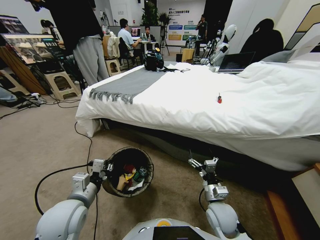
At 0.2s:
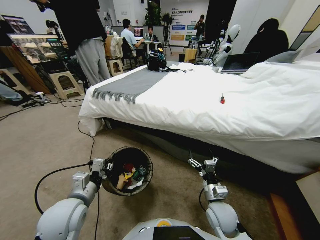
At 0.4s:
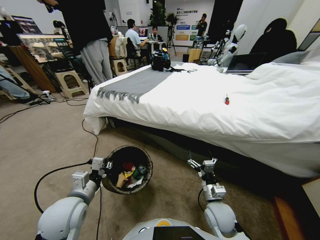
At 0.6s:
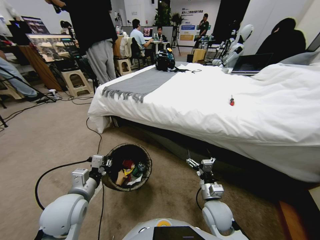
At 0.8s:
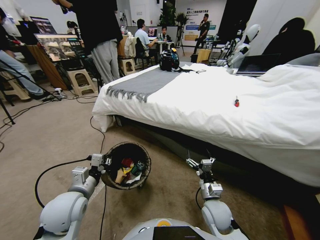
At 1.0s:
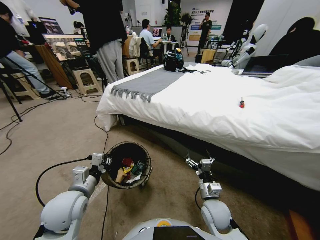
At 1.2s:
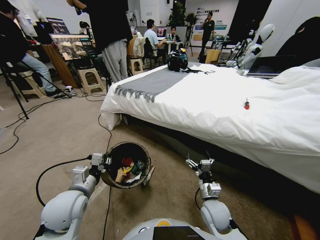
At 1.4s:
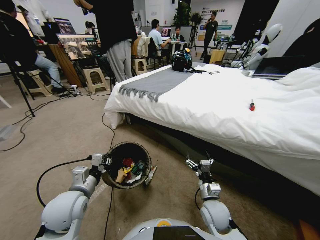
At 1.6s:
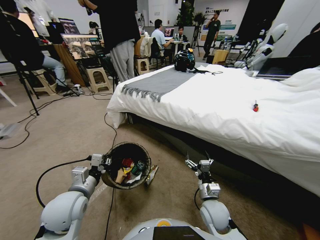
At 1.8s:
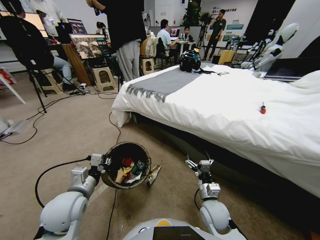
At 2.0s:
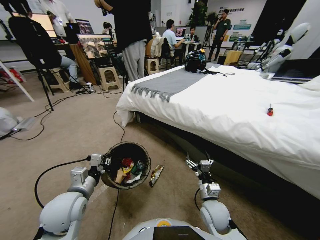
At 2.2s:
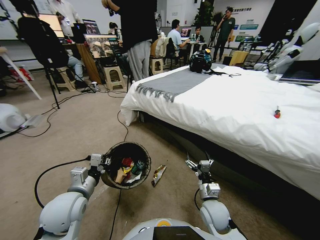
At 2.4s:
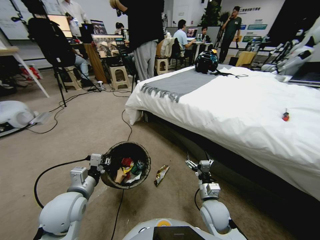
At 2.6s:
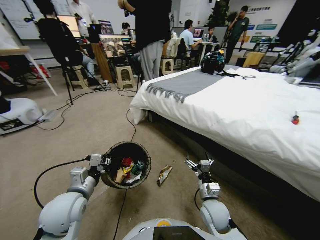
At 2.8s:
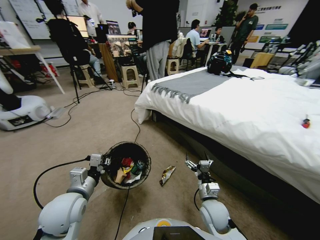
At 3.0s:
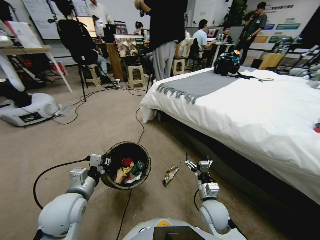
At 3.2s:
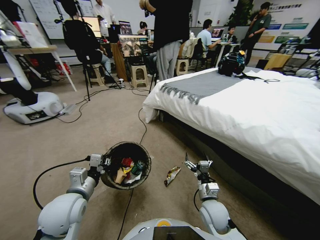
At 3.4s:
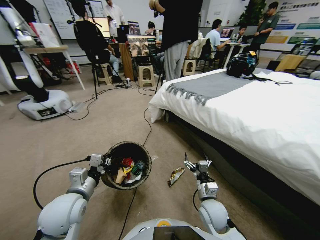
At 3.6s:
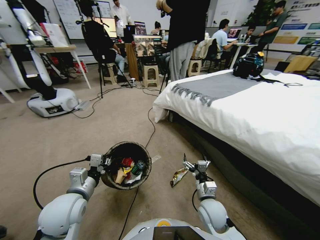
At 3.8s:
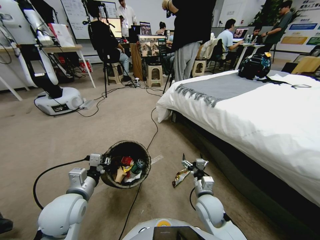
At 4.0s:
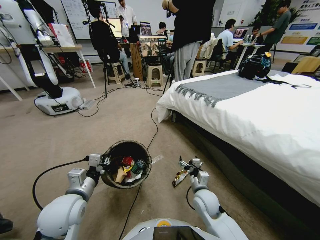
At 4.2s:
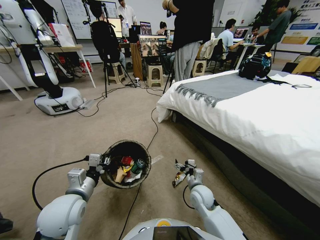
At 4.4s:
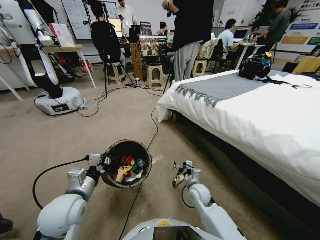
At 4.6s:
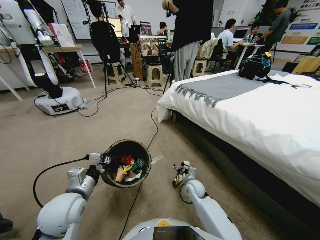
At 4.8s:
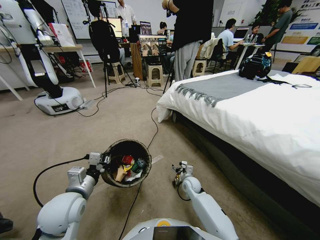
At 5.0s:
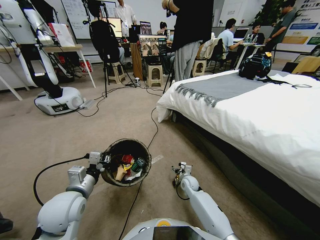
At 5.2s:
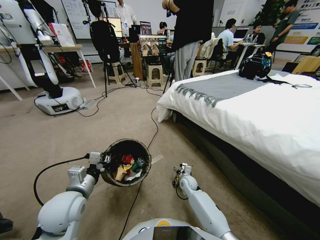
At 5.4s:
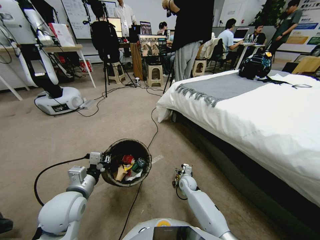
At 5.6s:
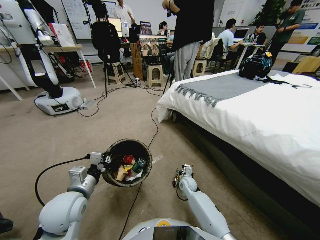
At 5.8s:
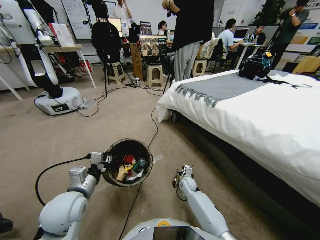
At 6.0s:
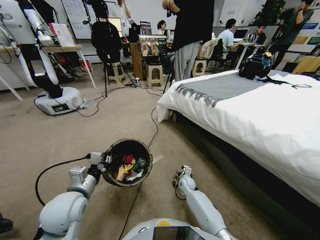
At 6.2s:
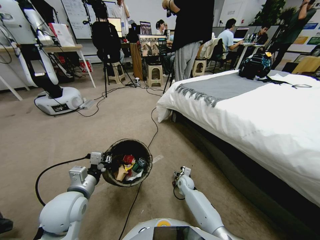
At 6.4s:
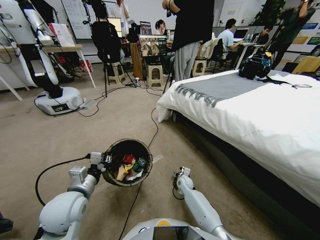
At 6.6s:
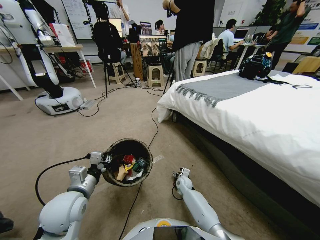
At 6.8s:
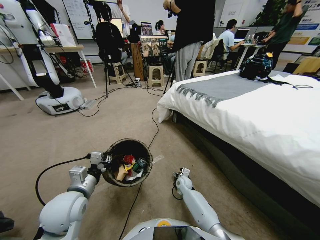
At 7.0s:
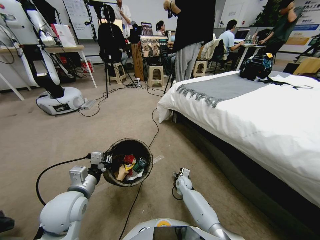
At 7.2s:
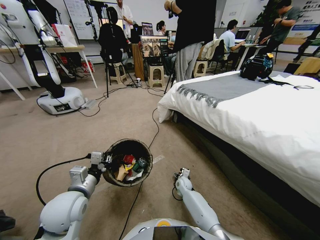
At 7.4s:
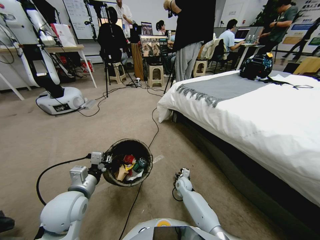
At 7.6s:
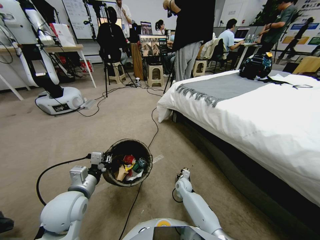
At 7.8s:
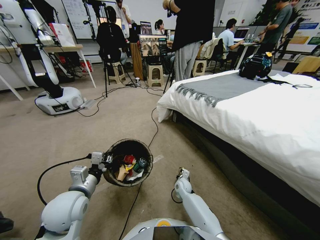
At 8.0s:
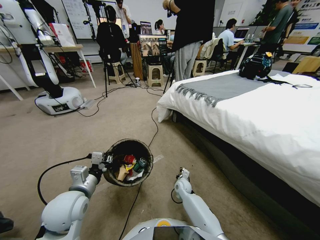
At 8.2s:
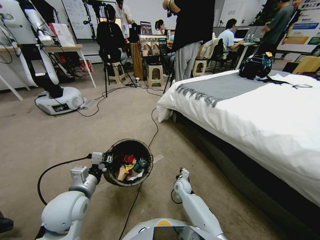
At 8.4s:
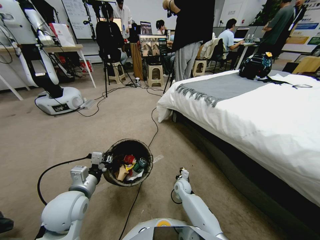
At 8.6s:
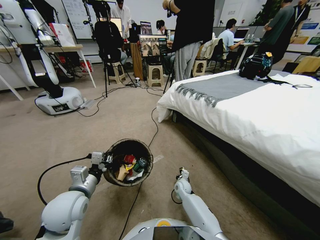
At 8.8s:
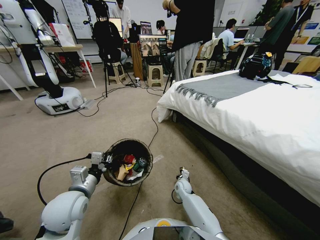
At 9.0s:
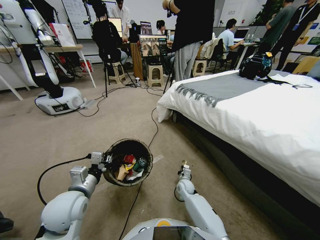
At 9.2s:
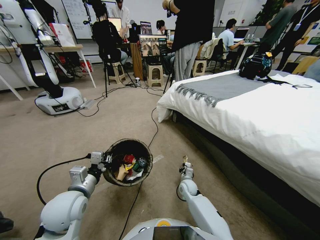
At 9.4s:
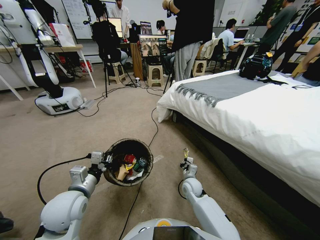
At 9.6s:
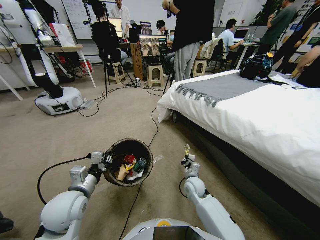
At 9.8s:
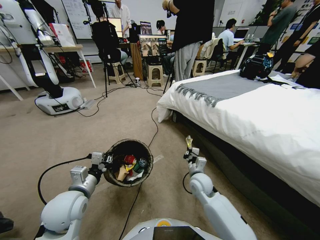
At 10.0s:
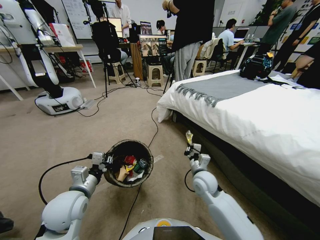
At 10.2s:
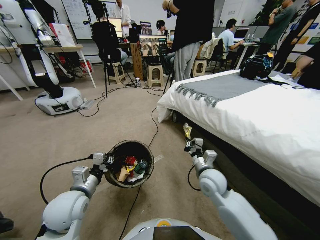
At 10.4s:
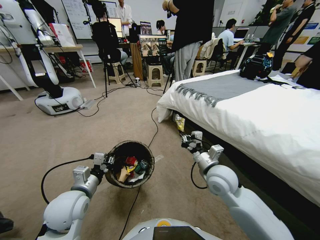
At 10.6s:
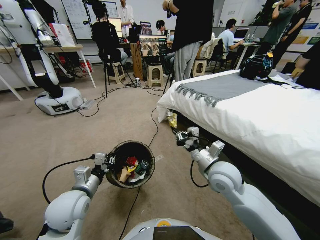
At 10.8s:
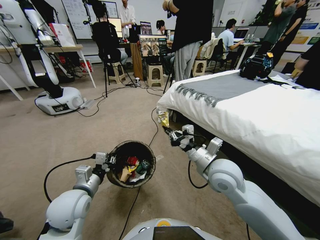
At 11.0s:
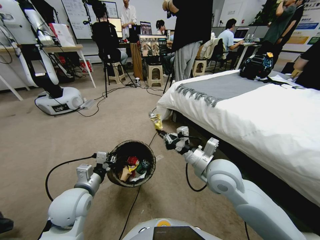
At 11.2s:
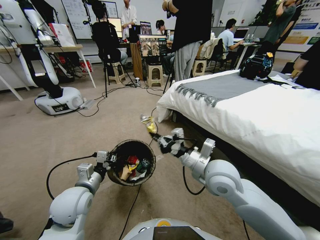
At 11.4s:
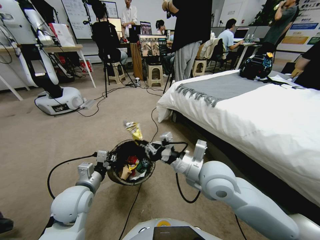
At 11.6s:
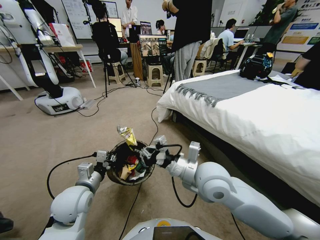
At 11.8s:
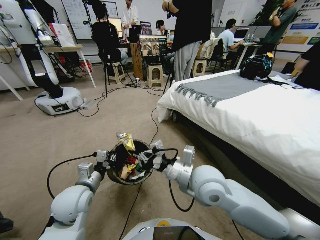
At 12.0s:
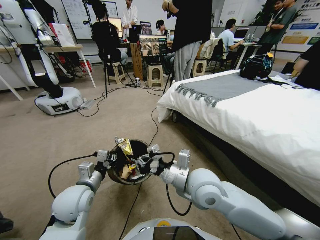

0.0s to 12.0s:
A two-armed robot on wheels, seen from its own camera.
Task of the whole recording: Pick up the trash bin, then pick up the garbage from the floor and place it into the trash bin.
3.0s to 4.4s: The right gripper heads forward and downward, covering roughly 15 cm.
4.4s to 6.0s: The right gripper is displaced downward and forward by roughly 10 cm.
6.0s to 7.6s: The right gripper closes.
7.6s to 9.0s: The right gripper closes up.
9.0s to 10.4s: The right gripper moves upward, roughly 30 cm.
10.4s to 12.0s: The right gripper moves to the left, approximately 10 cm.

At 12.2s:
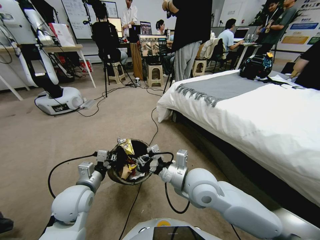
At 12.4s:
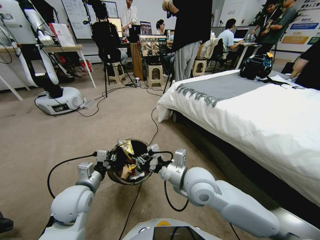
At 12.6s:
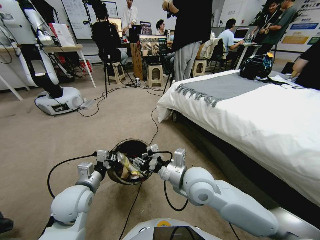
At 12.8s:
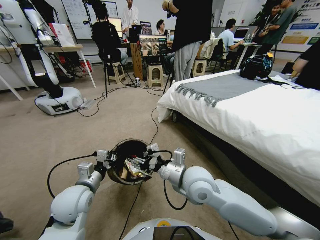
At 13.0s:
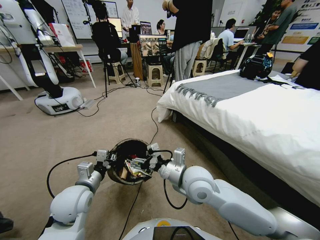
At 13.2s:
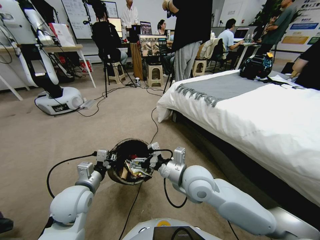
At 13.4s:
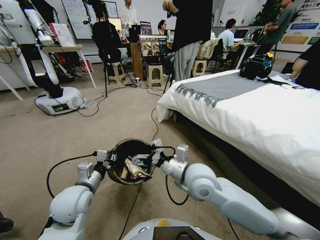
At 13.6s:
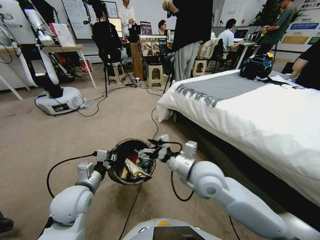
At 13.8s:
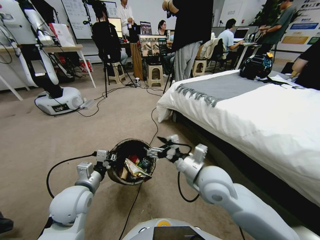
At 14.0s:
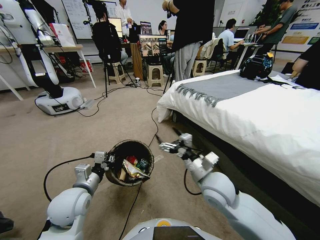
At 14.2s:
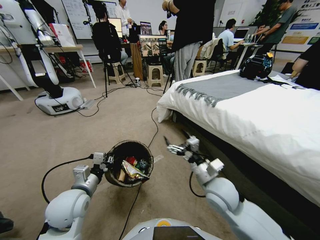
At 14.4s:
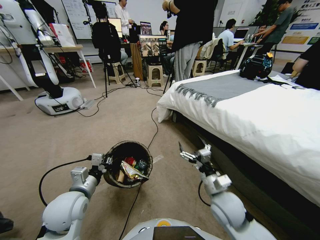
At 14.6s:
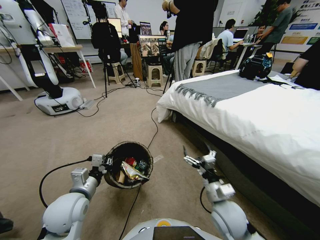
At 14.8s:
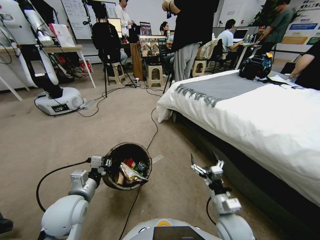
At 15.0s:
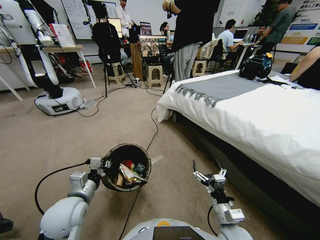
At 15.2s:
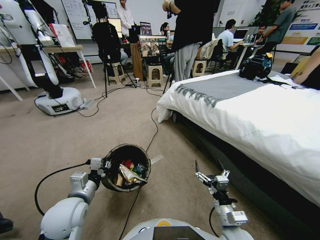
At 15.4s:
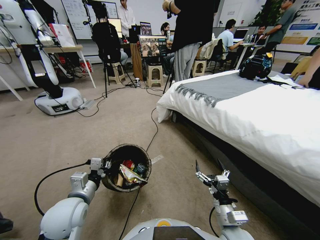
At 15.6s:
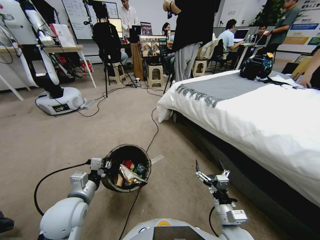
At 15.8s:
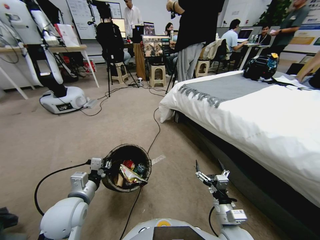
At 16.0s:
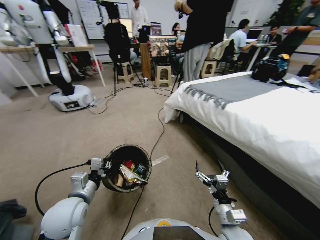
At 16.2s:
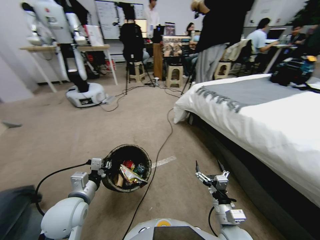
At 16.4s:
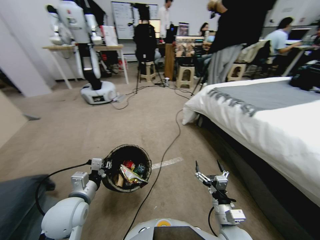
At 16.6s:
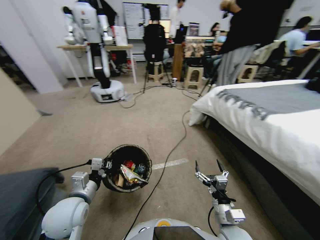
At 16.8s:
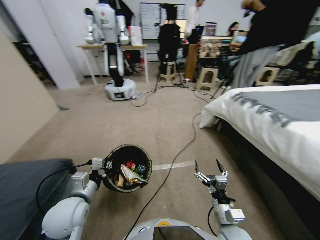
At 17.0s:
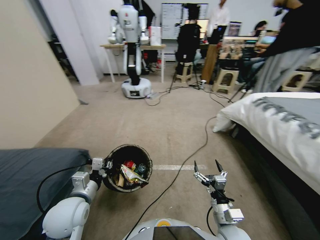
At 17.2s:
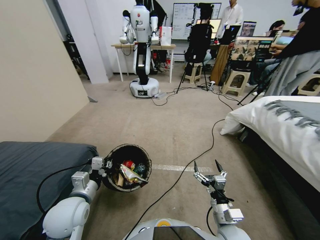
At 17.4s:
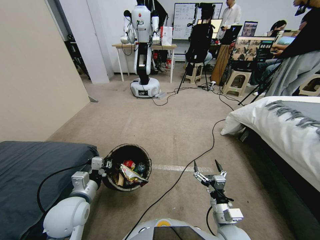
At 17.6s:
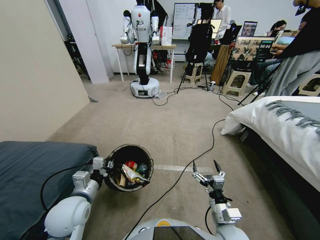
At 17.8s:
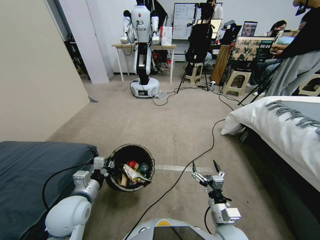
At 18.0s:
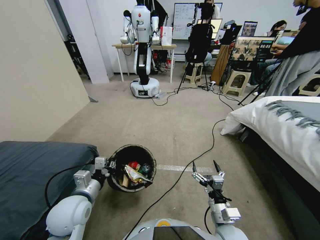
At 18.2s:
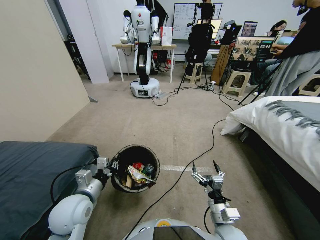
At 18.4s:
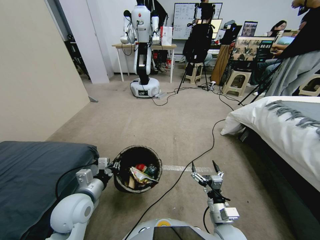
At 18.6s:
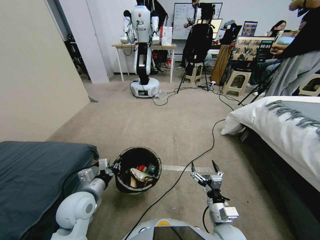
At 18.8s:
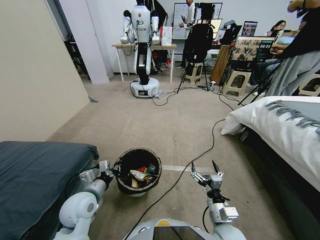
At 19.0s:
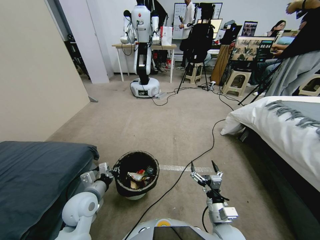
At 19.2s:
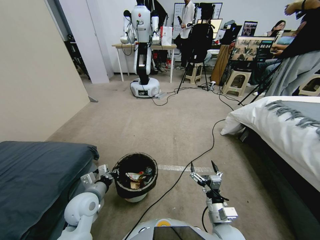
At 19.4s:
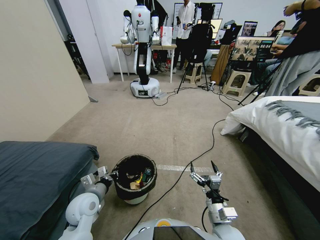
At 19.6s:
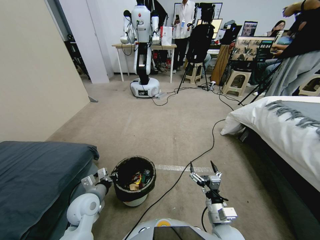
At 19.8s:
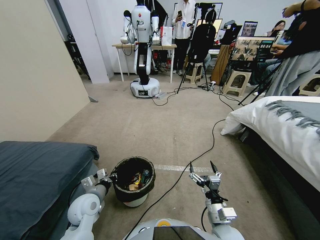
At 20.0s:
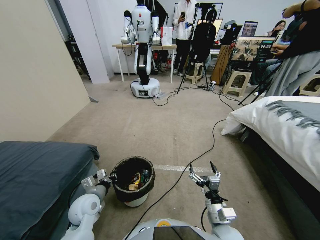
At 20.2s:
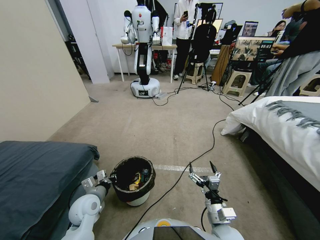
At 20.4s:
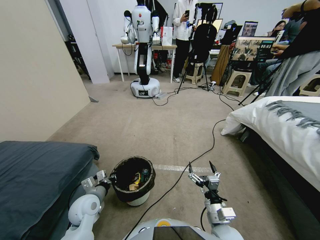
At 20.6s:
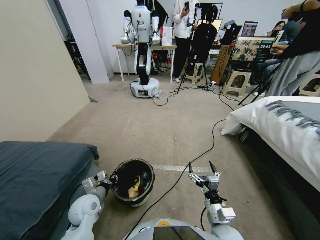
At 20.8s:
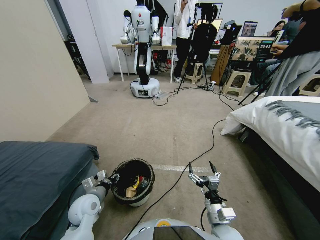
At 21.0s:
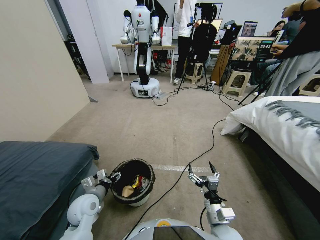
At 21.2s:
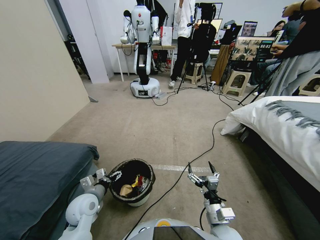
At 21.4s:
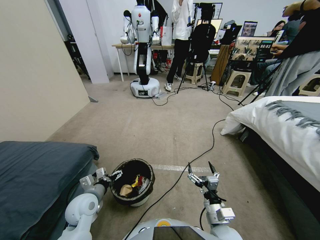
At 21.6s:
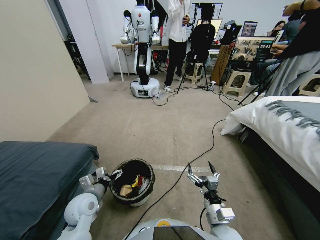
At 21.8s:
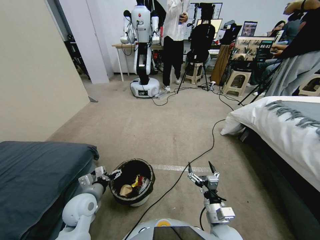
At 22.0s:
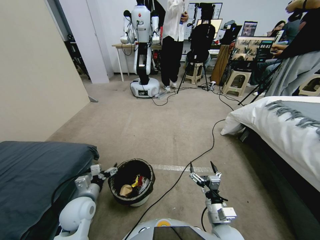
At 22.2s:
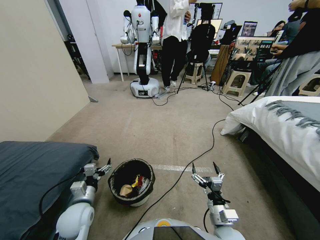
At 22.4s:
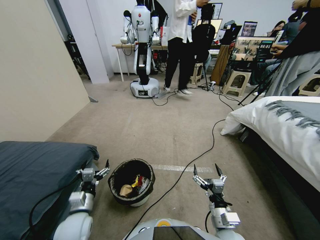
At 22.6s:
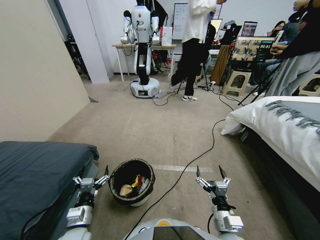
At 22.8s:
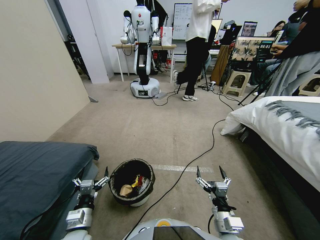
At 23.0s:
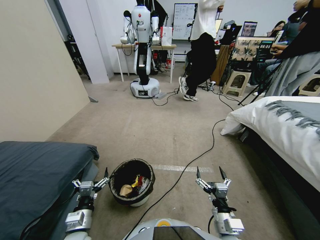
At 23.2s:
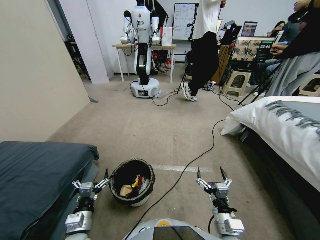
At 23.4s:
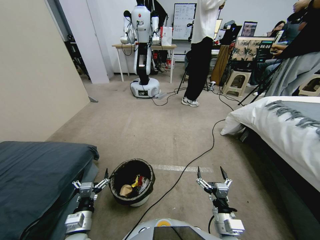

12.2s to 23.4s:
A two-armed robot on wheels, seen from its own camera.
Task of the whole recording: Pick up the trash bin, then pick up the garbage from the floor and place it into the trash bin.
12.2s to 13.8s: The right gripper opens.
13.8s to 15.4s: The right gripper is displaced downward, backward and to the right by some 20 cm.
18.6s to 20.2s: The left gripper is displaced downward by some 5 cm.
20.2s to 21.8s: The left gripper opens up.
21.8s to 23.4s: The left gripper travels backward by approximately 10 cm.
